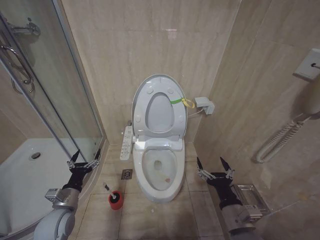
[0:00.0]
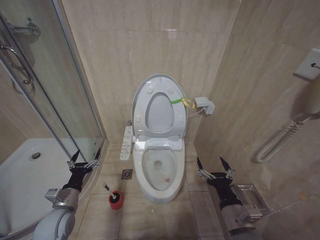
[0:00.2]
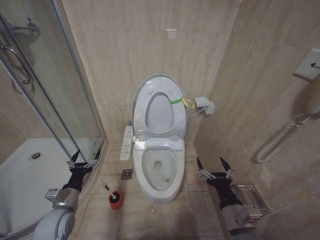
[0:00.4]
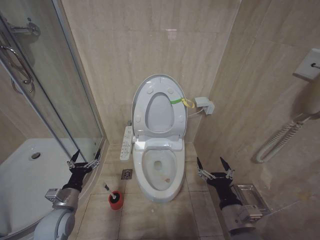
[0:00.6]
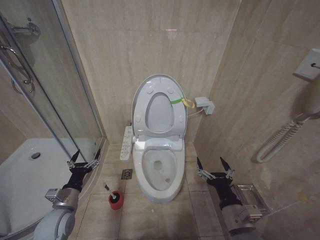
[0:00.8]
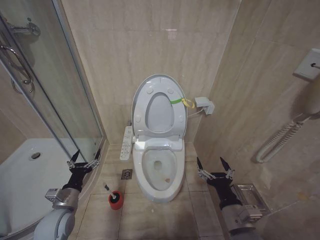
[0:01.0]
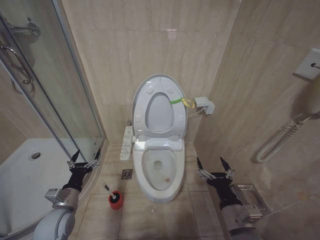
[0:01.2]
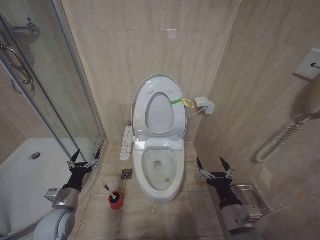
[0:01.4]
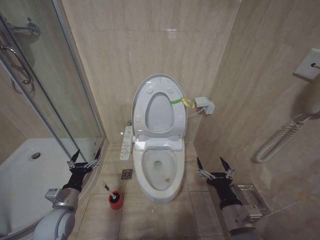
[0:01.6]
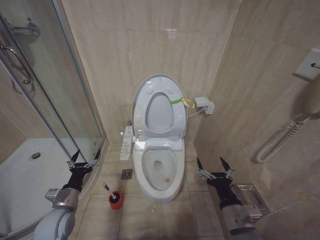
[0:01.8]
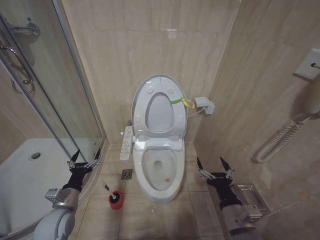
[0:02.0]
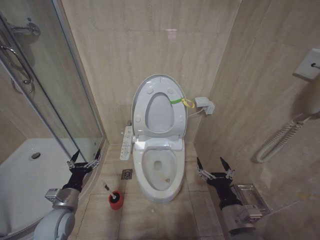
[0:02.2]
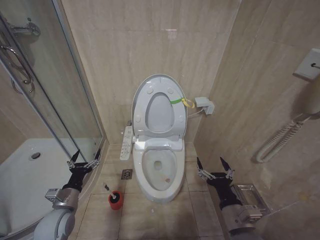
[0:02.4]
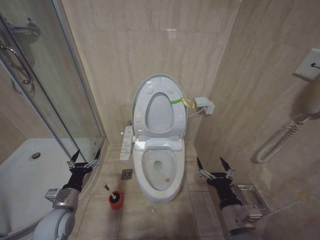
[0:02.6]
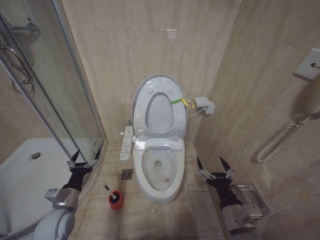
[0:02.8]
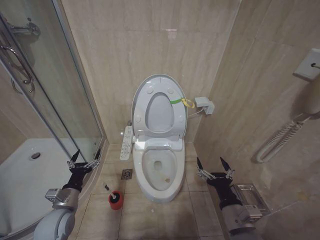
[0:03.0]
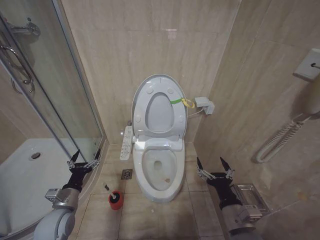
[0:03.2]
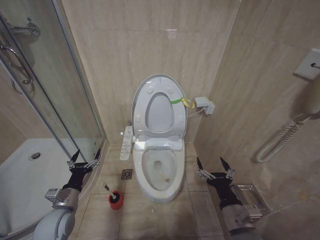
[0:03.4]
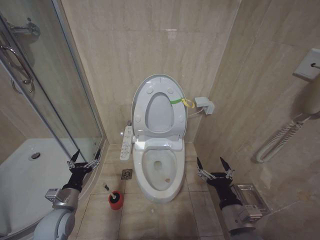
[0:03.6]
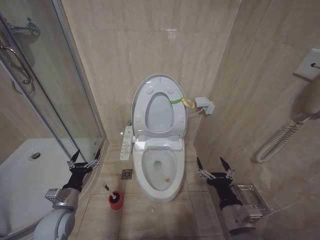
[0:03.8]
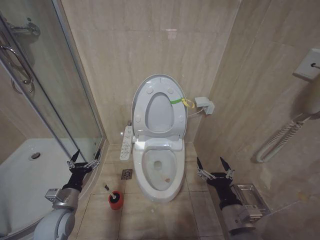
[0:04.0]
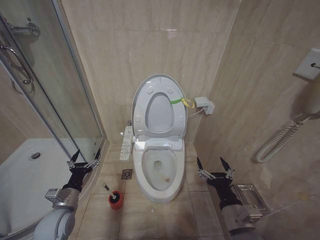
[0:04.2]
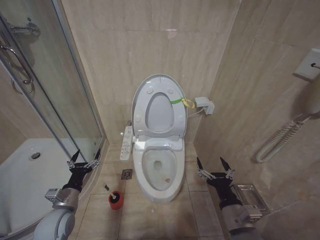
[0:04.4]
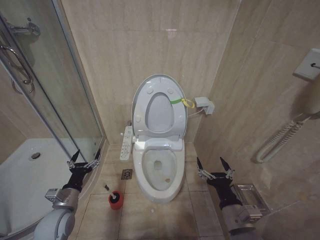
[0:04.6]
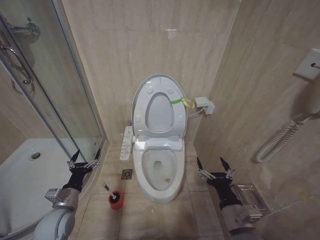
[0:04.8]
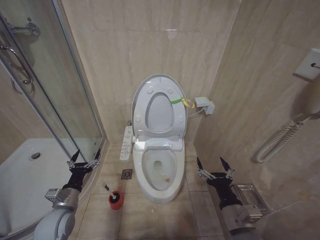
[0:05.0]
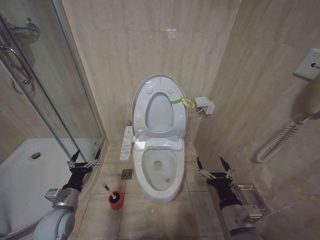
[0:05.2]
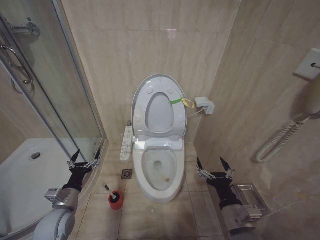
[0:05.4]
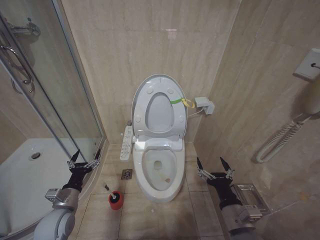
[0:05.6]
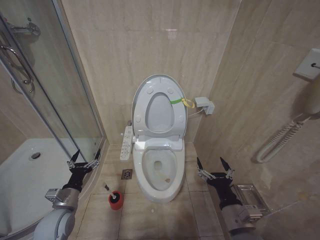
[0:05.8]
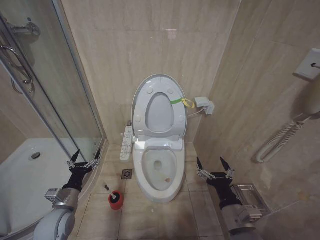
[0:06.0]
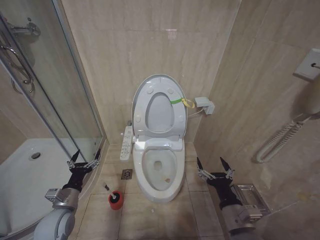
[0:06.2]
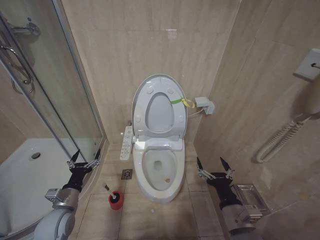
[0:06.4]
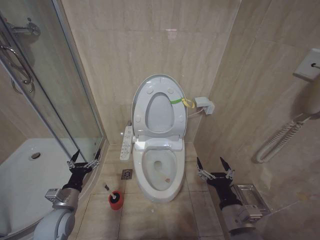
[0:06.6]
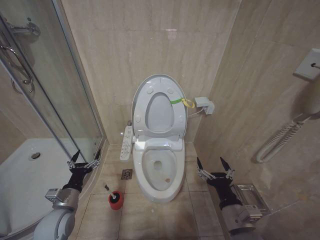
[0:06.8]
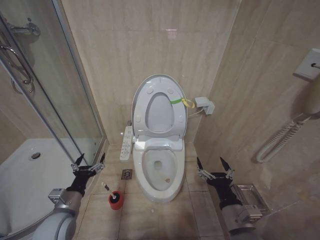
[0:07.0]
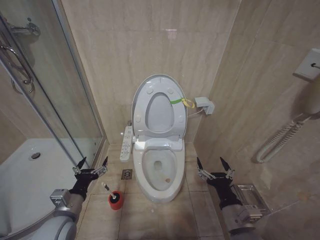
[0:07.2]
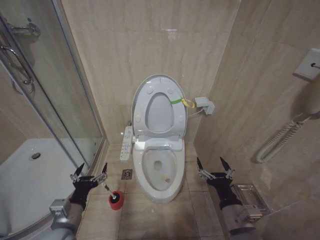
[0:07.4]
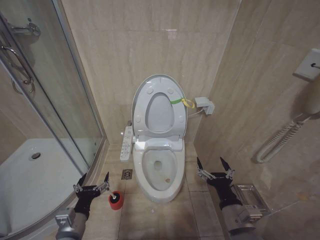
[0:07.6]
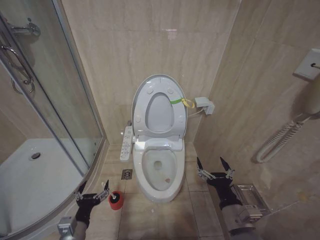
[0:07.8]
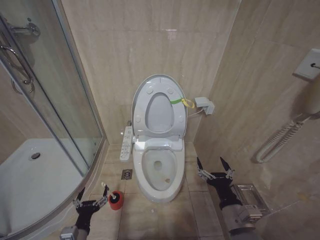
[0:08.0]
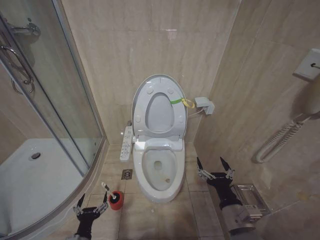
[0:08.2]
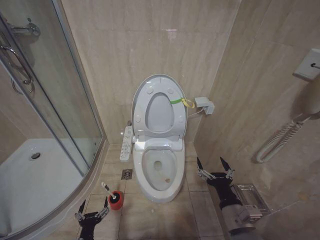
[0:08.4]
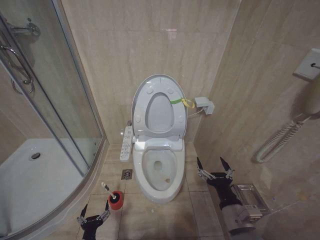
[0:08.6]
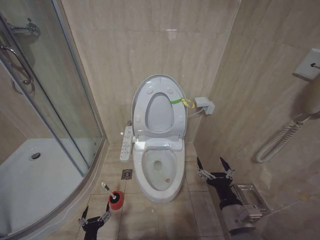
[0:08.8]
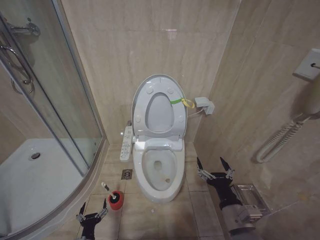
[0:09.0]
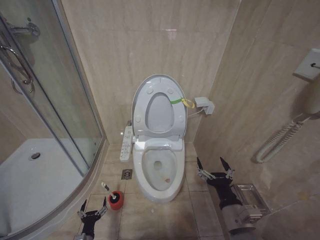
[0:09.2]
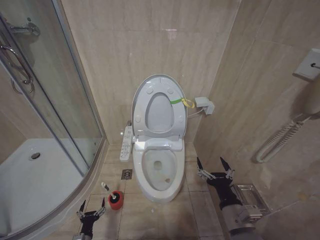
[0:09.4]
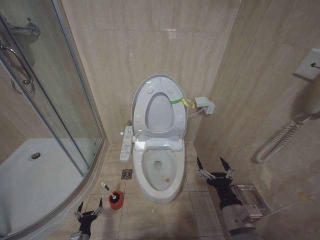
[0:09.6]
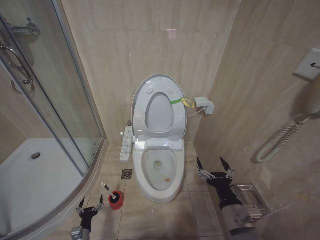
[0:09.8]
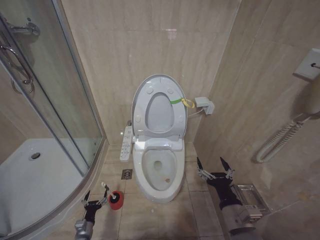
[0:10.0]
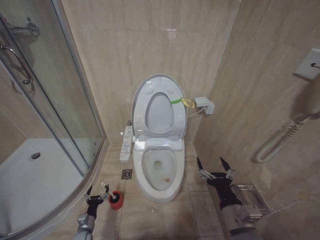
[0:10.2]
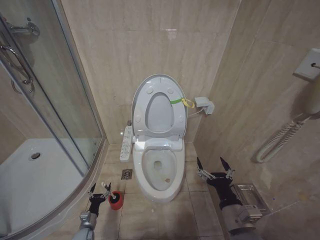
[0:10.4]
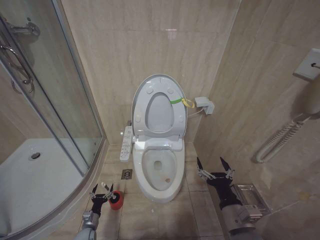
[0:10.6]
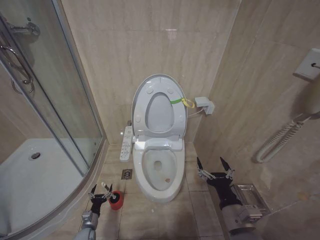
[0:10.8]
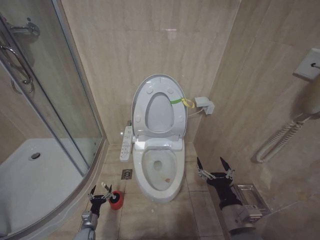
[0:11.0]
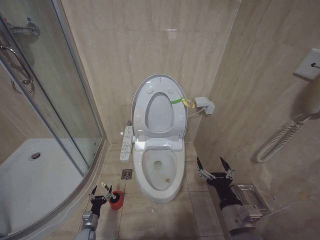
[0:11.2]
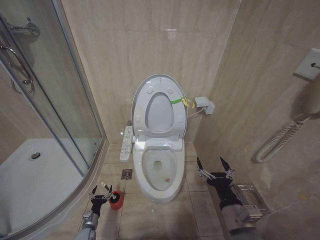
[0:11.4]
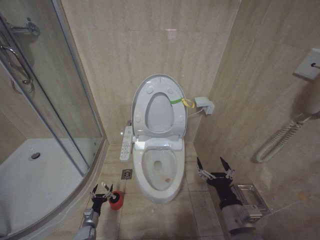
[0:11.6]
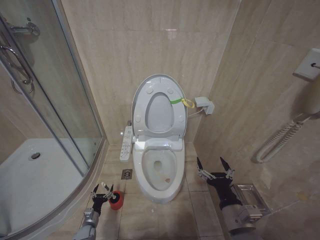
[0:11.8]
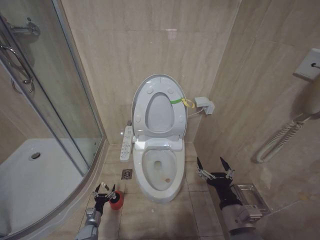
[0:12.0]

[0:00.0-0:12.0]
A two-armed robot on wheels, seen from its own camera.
Task of the whole recording: Open the toilet lid, clean the toilet bowl with a toilet brush, close the toilet lid, and flush.
0:00.0 to 0:06.0: The two grippers keep their place.
0:06.0 to 0:07.6: The left gripper shifts about 10 cm backward and to the right.
0:07.6 to 0:09.0: The left gripper heads downward, covering approximately 25 cm.
0:09.0 to 0:10.4: The left gripper shifts some 15 cm forward, downward and to the left.

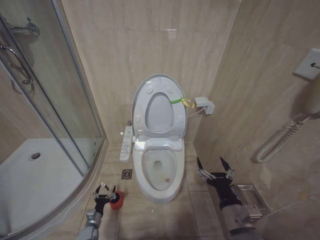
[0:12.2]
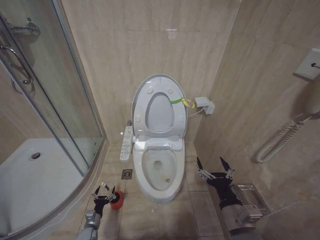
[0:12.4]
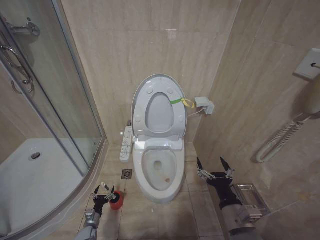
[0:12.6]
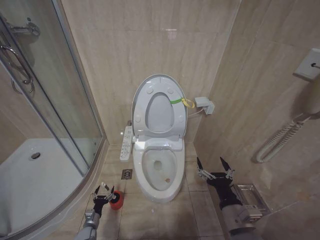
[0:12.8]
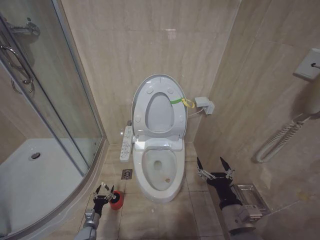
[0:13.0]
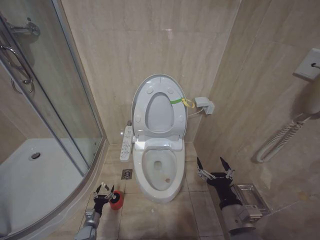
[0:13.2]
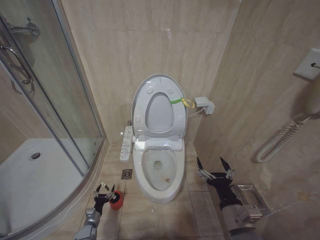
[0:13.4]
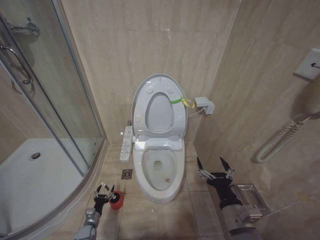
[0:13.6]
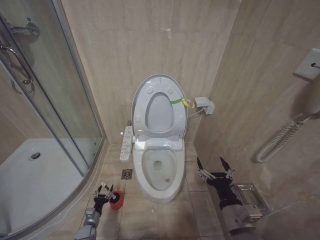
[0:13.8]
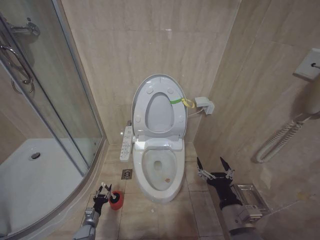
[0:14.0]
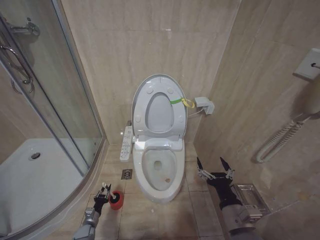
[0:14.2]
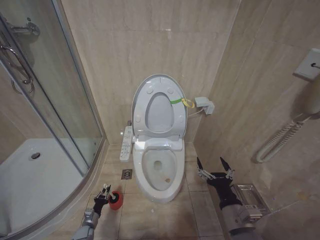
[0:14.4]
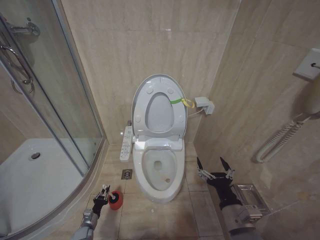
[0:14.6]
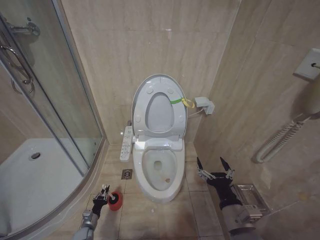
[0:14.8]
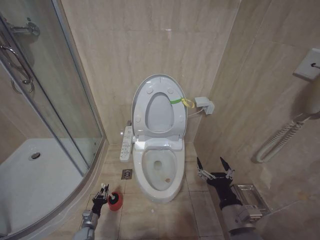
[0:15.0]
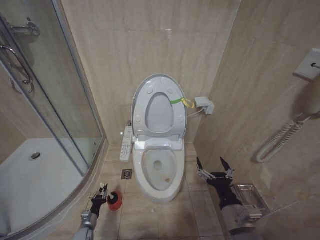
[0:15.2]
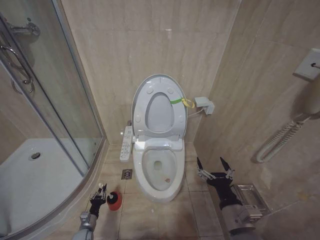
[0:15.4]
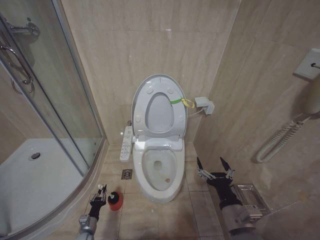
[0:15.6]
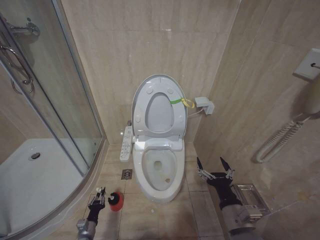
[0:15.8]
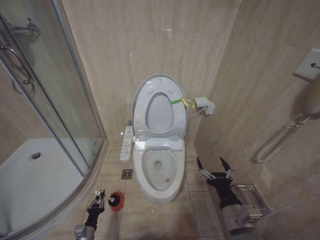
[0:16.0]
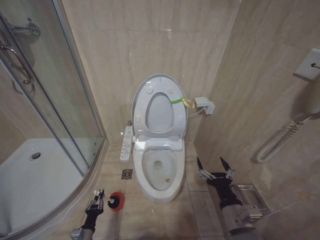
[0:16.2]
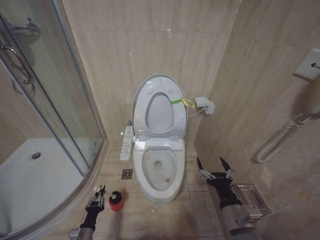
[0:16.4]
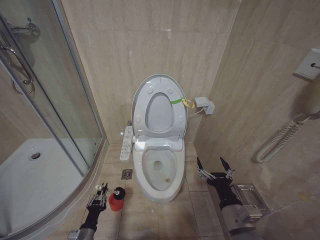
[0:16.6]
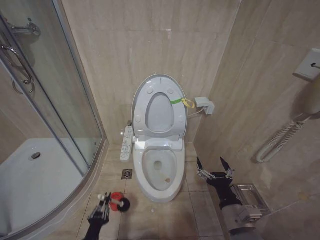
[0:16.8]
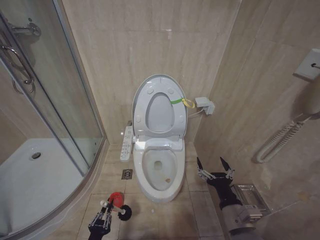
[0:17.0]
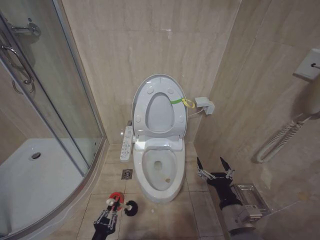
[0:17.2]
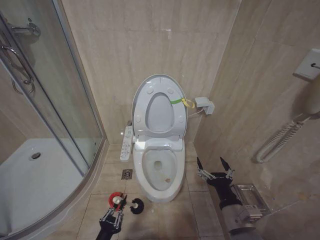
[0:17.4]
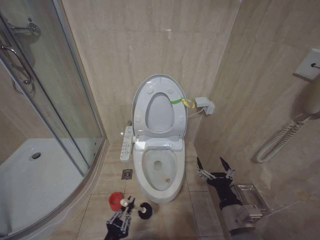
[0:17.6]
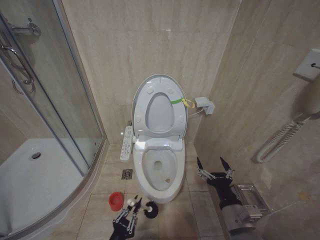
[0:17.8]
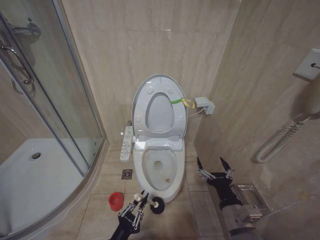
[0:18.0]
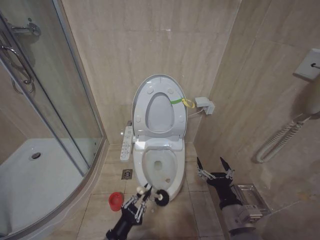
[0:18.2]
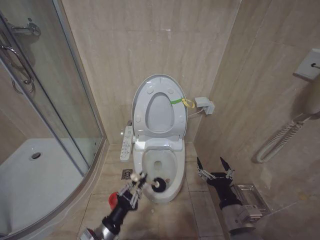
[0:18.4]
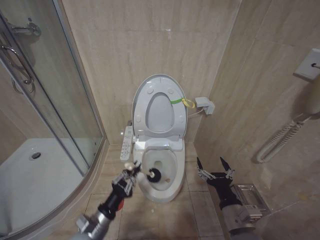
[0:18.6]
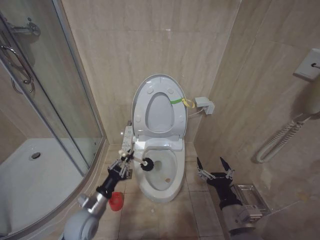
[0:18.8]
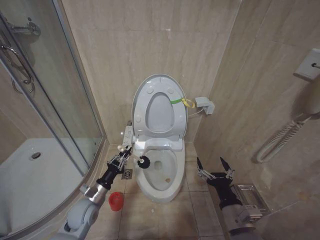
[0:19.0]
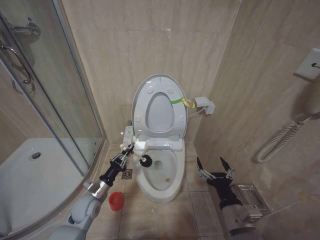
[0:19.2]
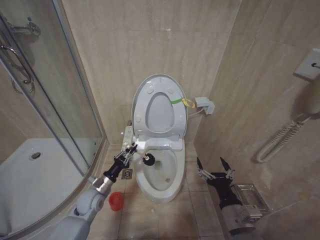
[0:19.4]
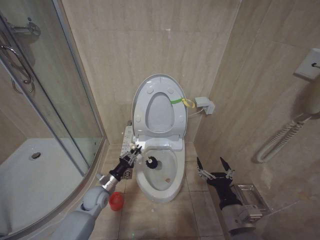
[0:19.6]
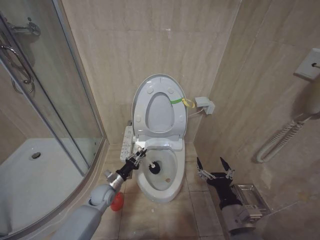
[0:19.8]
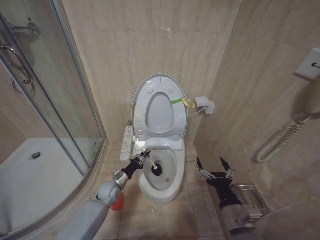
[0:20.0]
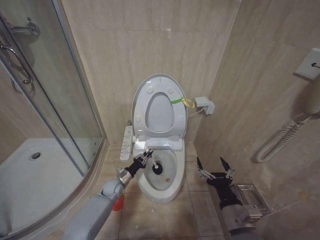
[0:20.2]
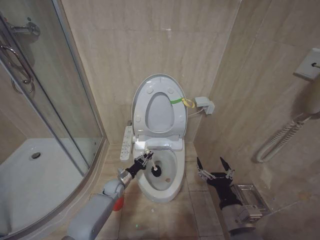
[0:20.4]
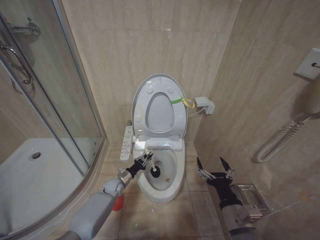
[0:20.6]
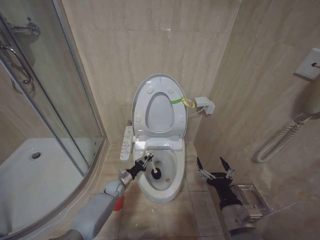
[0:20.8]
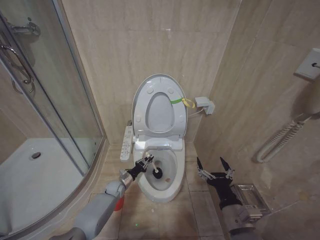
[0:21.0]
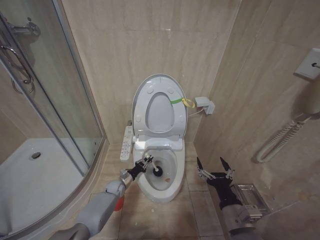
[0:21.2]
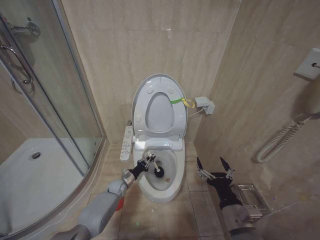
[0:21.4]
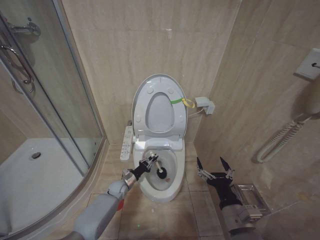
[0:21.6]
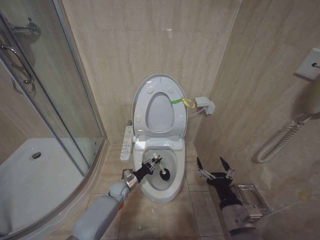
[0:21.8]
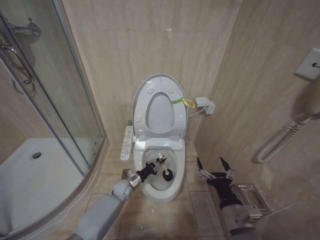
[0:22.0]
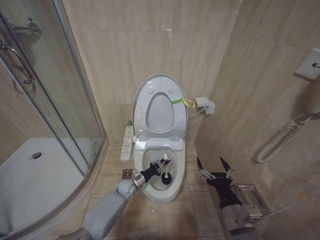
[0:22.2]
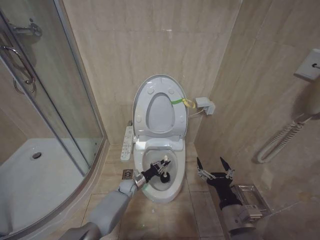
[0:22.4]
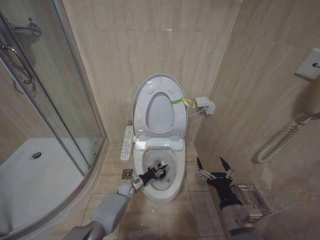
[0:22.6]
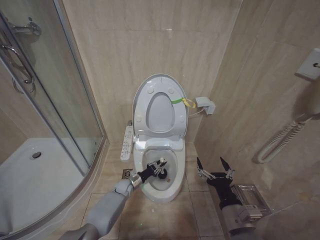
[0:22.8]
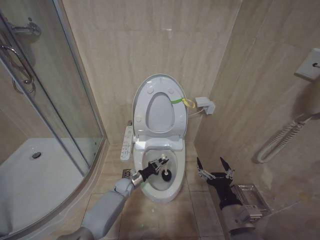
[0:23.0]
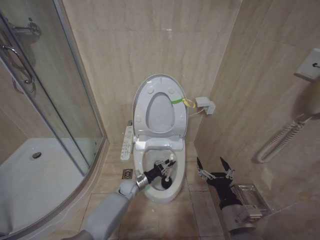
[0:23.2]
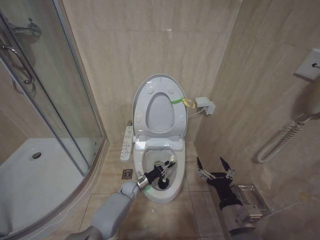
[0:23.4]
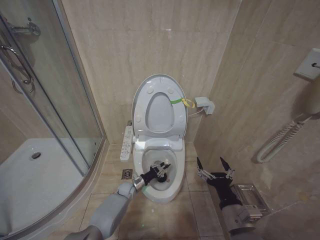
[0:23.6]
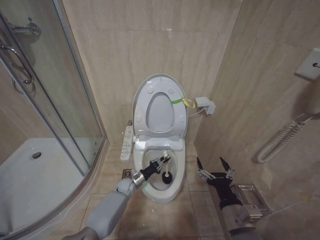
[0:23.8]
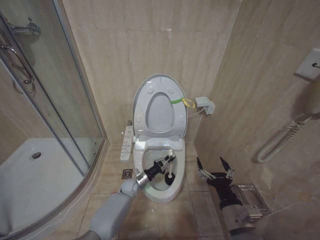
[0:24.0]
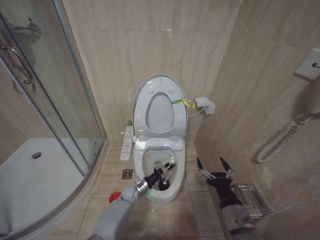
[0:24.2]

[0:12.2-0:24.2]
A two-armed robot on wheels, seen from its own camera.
Task of the whole recording: Open the toilet lid, clean the toilet bowl with a toilet brush, close the toilet lid, and flush.
0:12.2 to 0:13.8: Neither gripper changes place.
0:13.8 to 0:15.2: The left gripper closes its fingers.
0:15.2 to 0:16.6: The left gripper heads upward, backward and to the right, covering approximately 15 cm.
0:16.6 to 0:18.2: The left gripper is displaced upward, to the right and backward by about 15 cm.
0:18.2 to 0:19.8: The left gripper goes roughly 25 cm forward.
0:19.8 to 0:21.2: The left gripper is displaced downward and forward by roughly 15 cm.
0:21.2 to 0:22.6: The left gripper travels to the right by roughly 5 cm.
0:22.6 to 0:24.2: The left gripper moves up and down over some 5 cm, changing direction 2 times.
